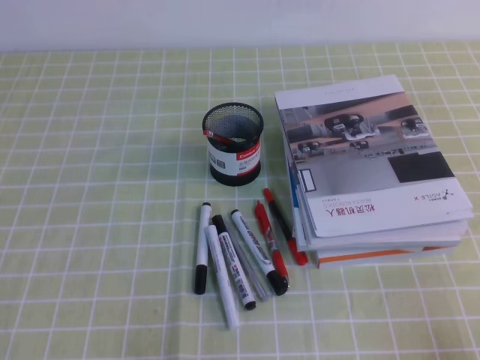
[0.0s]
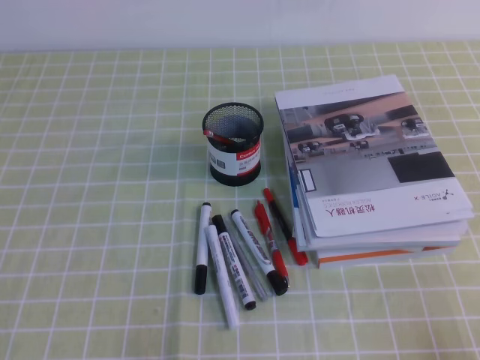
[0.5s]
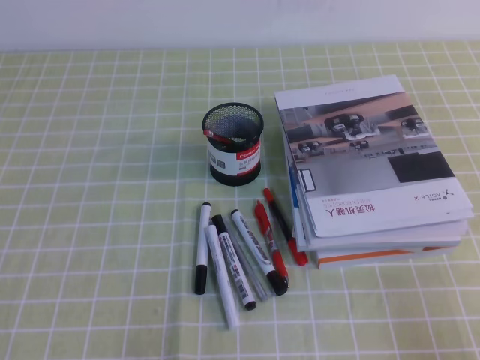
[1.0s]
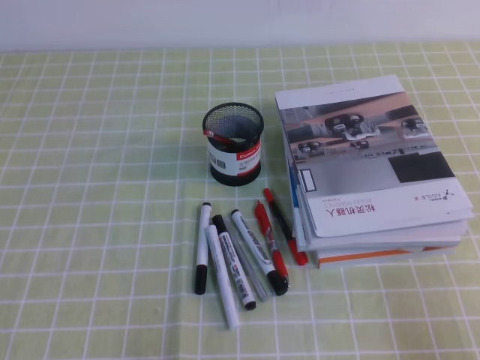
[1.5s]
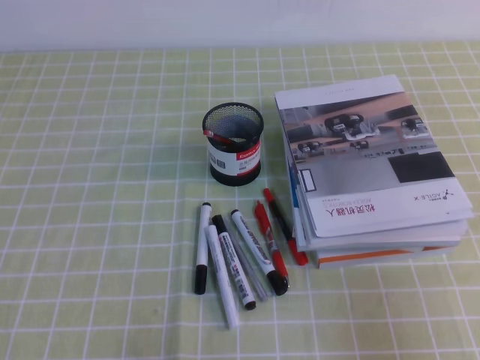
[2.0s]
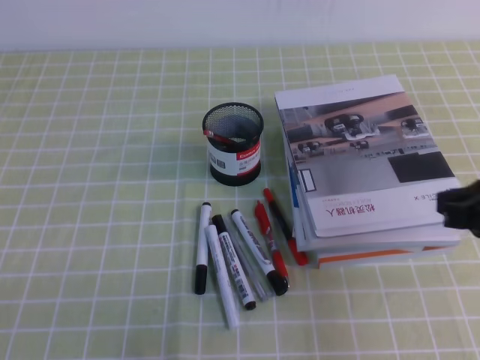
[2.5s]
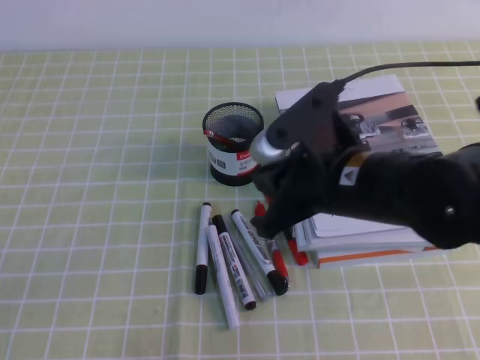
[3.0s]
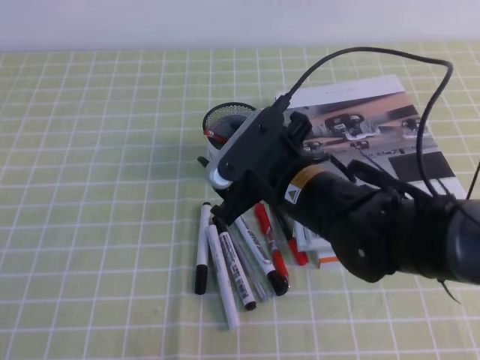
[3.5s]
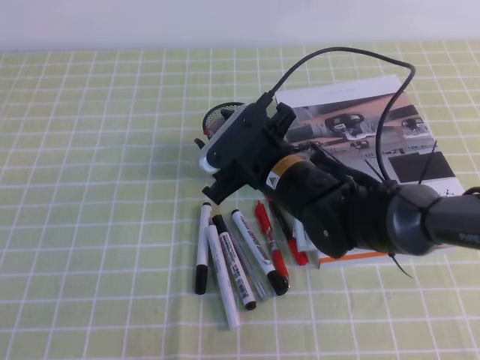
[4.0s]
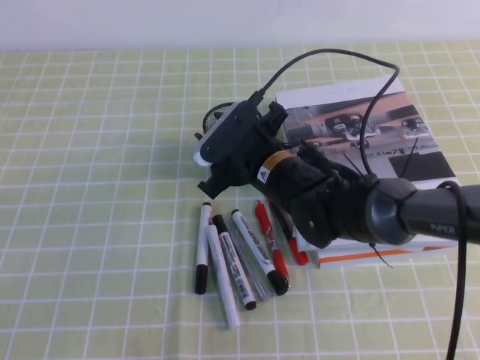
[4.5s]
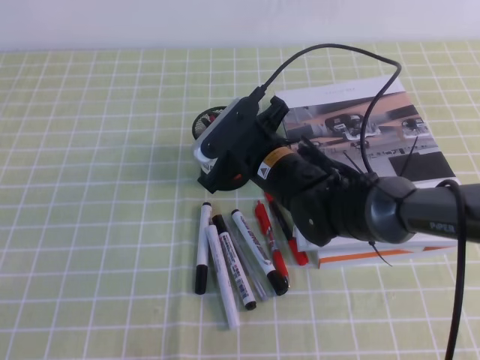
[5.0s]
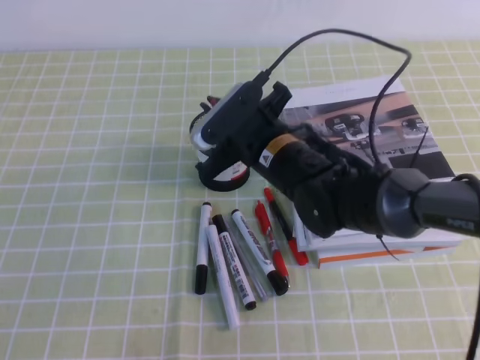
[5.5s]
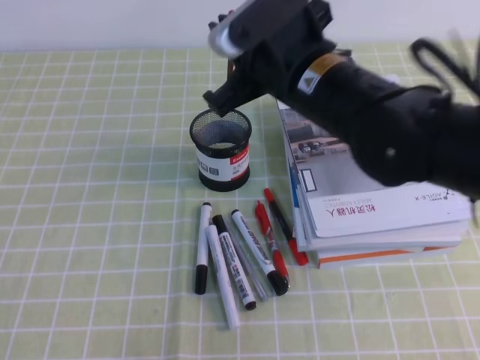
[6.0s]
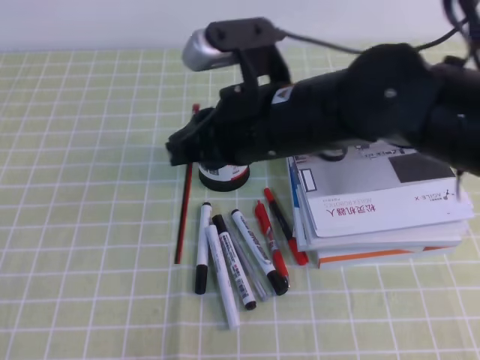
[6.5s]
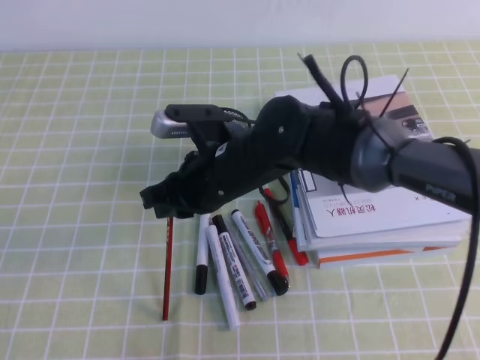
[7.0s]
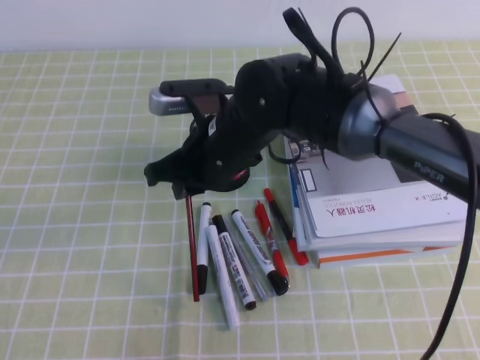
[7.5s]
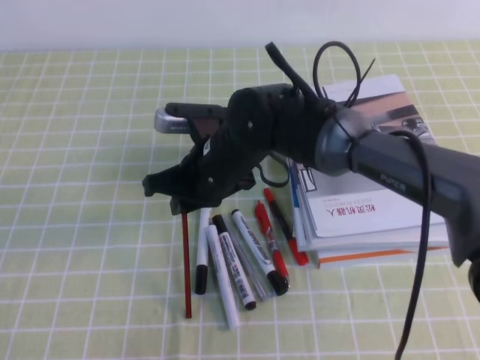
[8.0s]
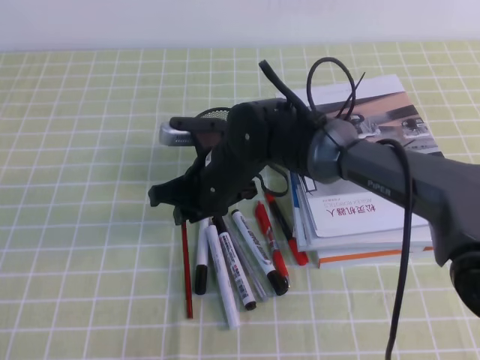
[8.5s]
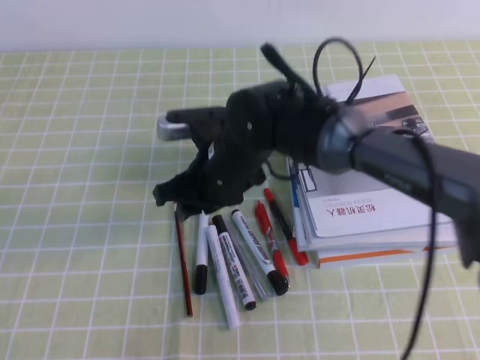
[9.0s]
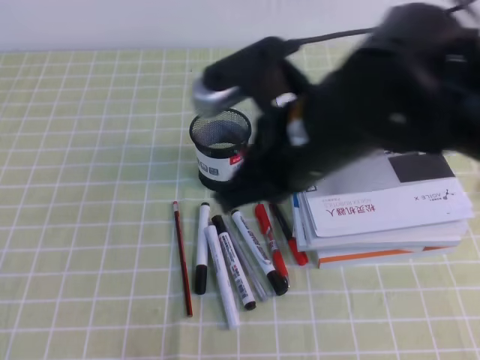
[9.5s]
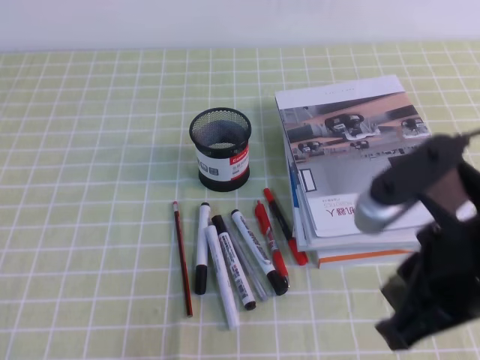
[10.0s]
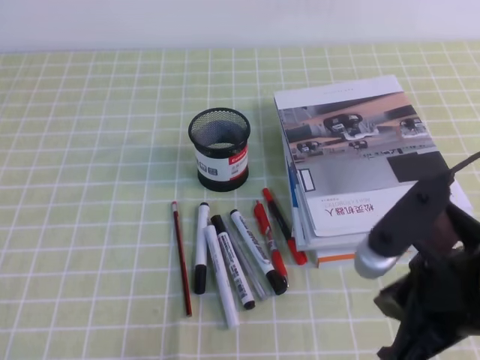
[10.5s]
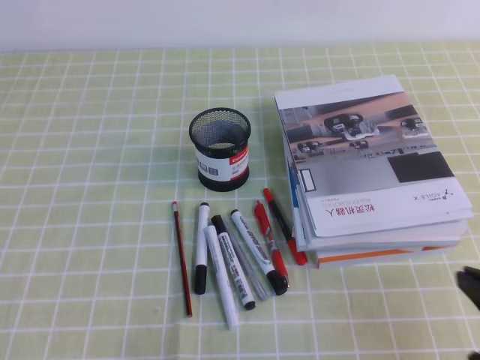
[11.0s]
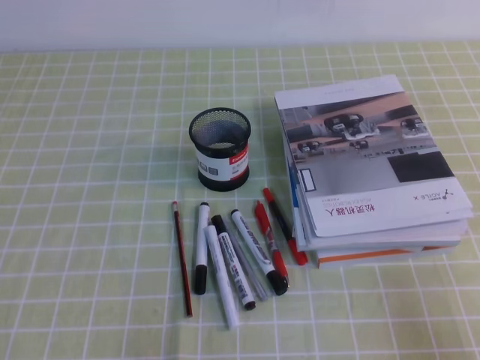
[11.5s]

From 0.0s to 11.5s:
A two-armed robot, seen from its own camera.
From 0.0s to 2.0s: The right gripper goes some 10 cm upward.
From 2.0s to 4.0s: The right gripper shifts about 35 cm to the left and forward, and opens.
From 4.0s to 6.0s: The right gripper is displaced upward by about 10 cm, and closes its fingers.
From 6.0s to 7.5s: The right gripper travels downward and to the left by approximately 10 cm.
From 7.5s to 9.5s: The right gripper travels upward, backward and to the right by some 15 cm, and opens, then closes once more.
From 9.5s to 11.5s: The right gripper goes approximately 35 cm to the right, downward and backward.

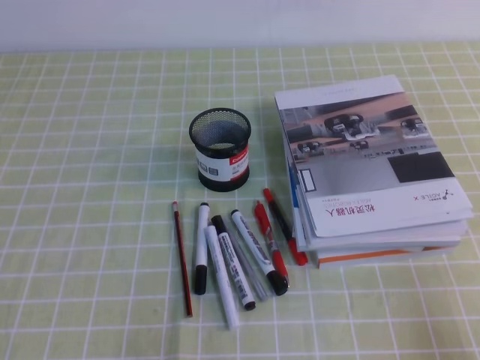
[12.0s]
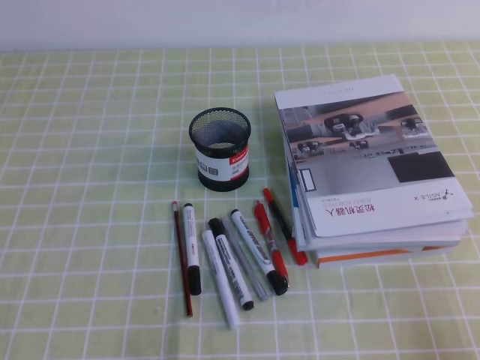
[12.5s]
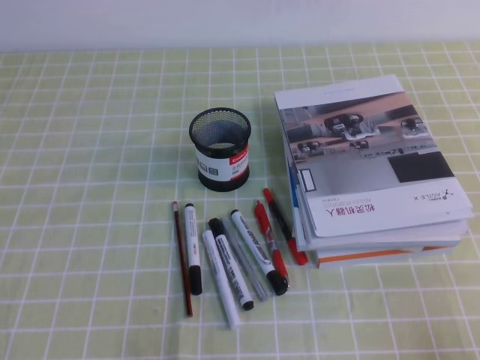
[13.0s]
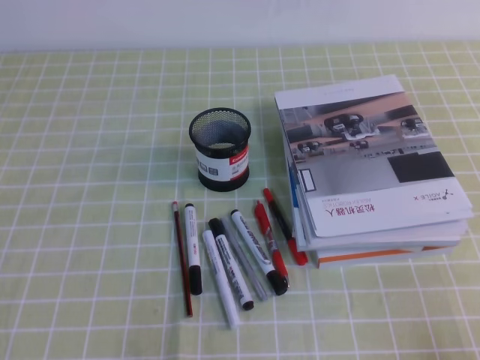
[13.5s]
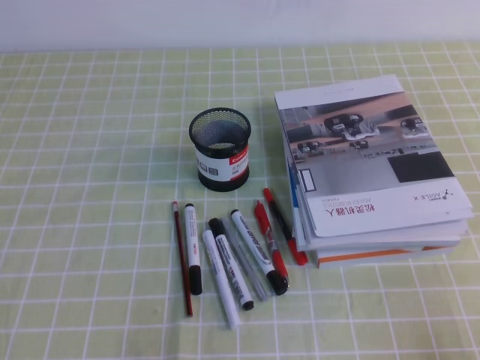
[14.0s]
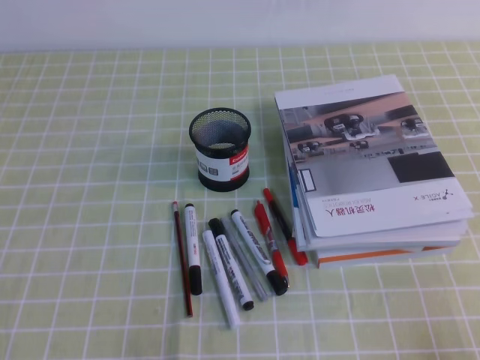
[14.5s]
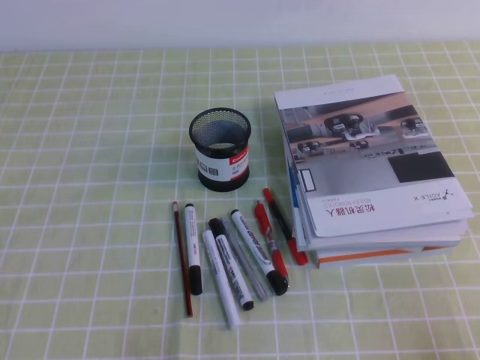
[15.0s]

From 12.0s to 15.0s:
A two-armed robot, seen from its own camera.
Step, from 12.0s to 15.0s: Pick up the pen from the pen holder.
From 12.0s to 13.5s: The grippers make only small movements.
From 13.5s to 15.0s: Neither gripper changes place.

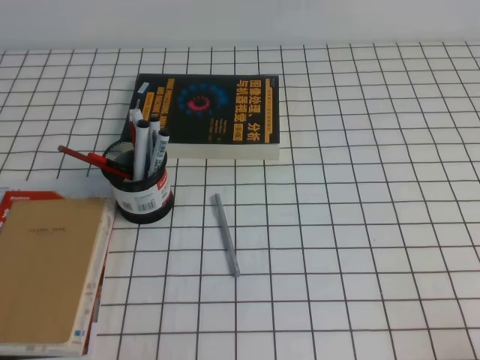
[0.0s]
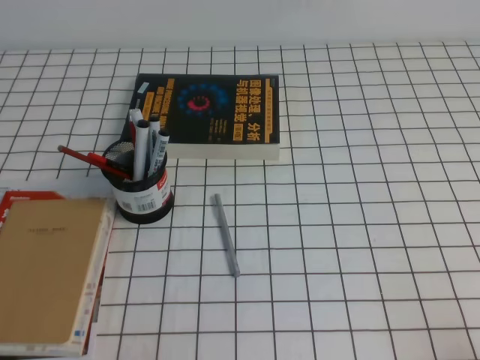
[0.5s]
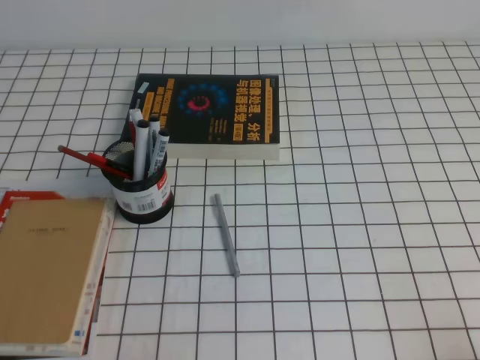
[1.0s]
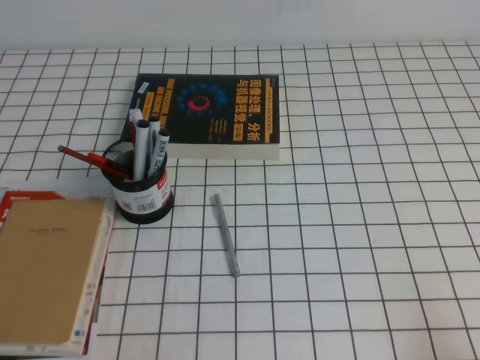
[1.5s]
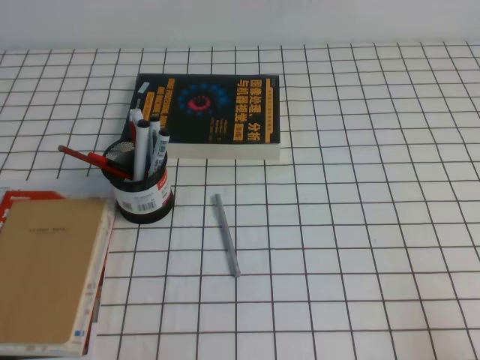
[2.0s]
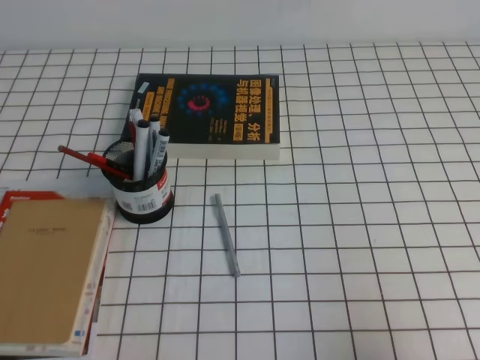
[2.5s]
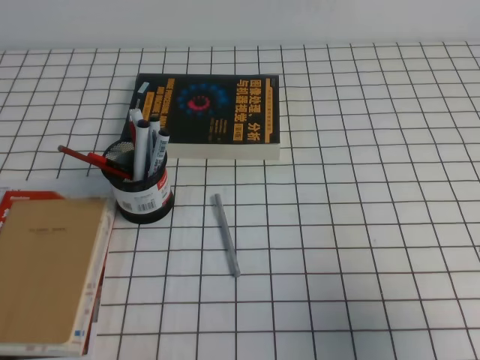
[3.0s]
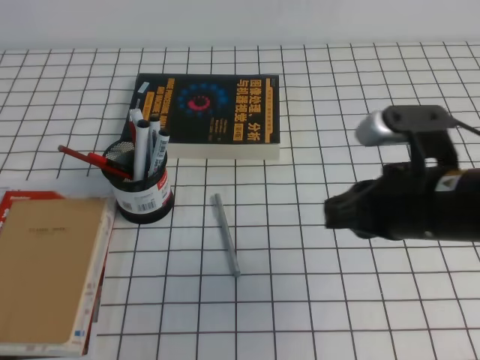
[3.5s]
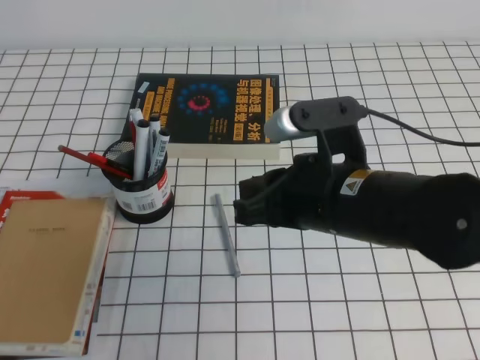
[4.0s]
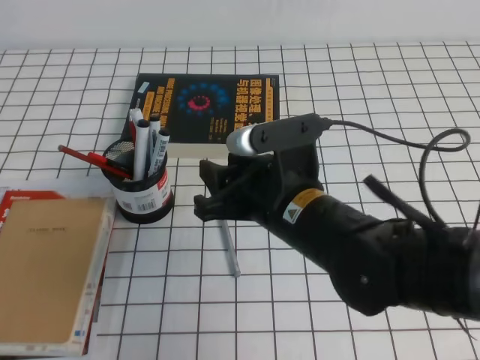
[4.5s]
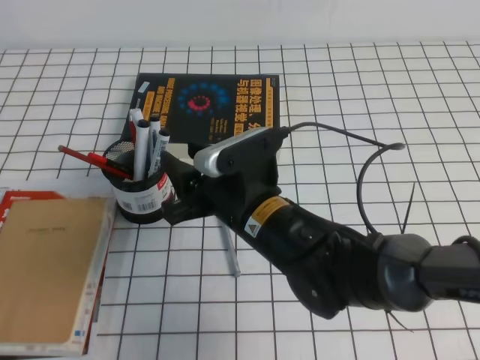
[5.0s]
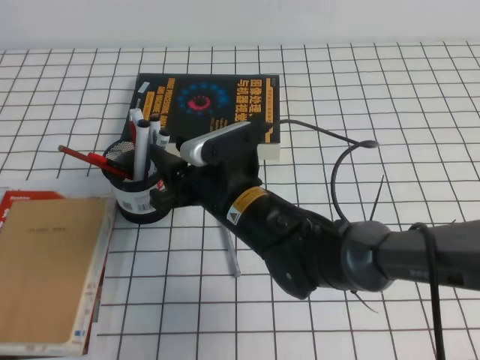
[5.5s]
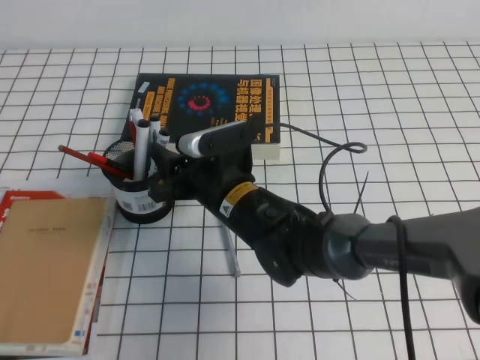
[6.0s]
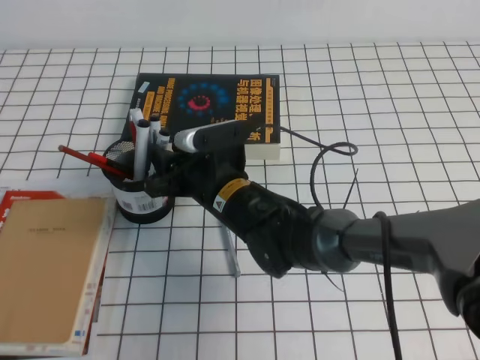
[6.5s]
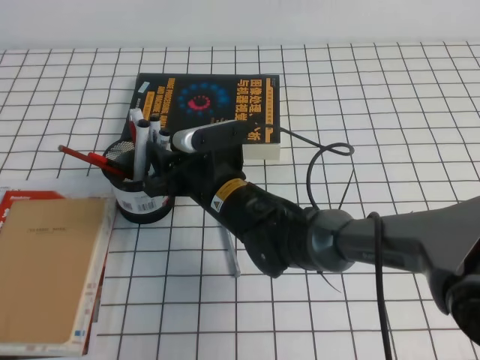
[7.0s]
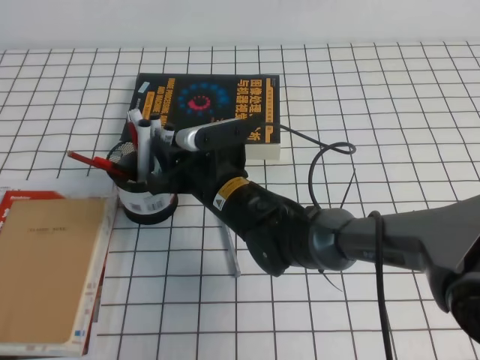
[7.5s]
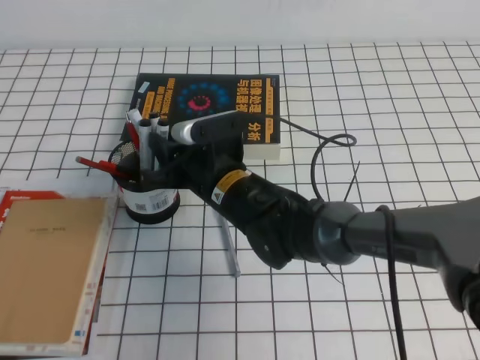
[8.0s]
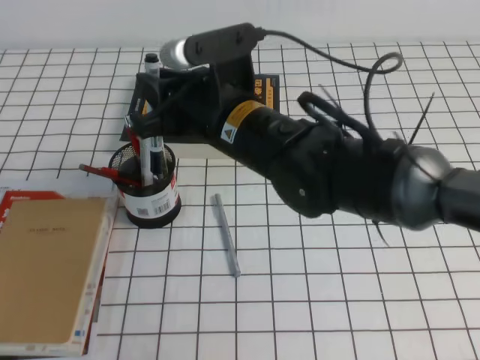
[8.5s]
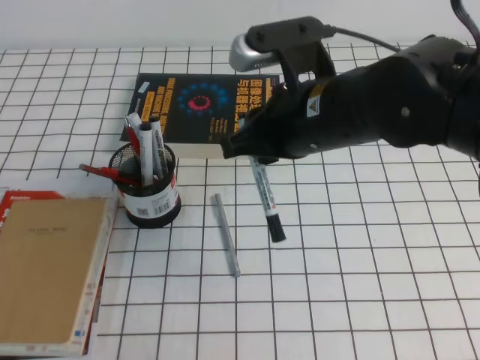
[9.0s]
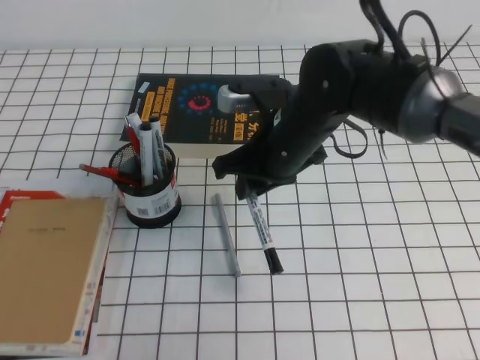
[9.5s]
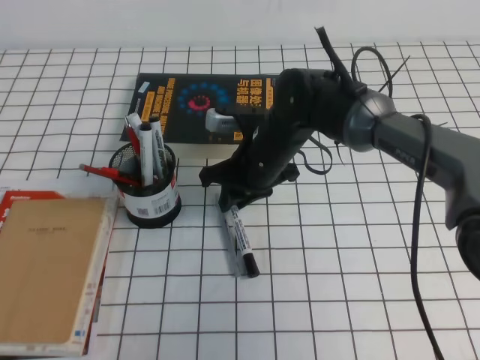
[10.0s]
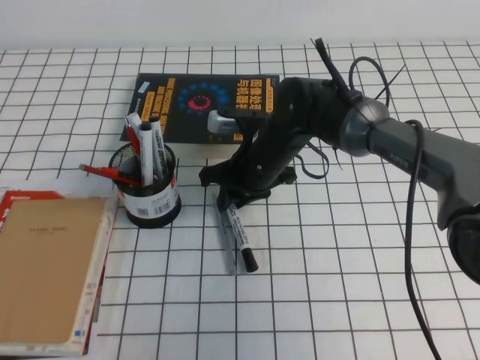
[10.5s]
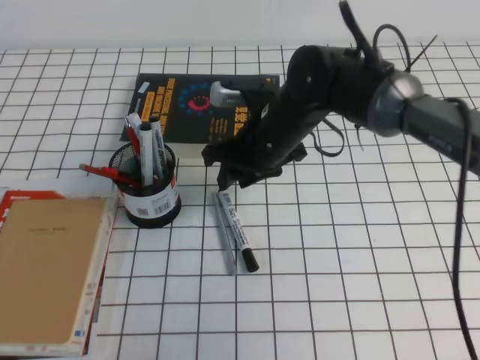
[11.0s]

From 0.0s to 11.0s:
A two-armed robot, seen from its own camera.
From 2.0s to 3.5s: The right gripper shifts about 25 cm forward, to the left and upward.
From 3.5s to 5.5s: The right gripper travels to the left by roughly 20 cm, and opens its fingers.
From 5.5s to 7.5s: The right gripper ends up some 5 cm from where it was.
From 7.5s to 9.0s: The right gripper travels upward and to the right by some 20 cm.
From 9.0s to 11.0s: The right gripper travels downward and forward by some 15 cm.
